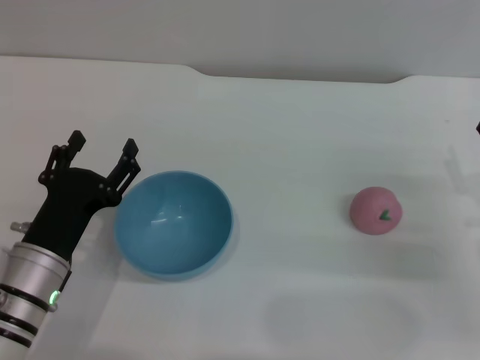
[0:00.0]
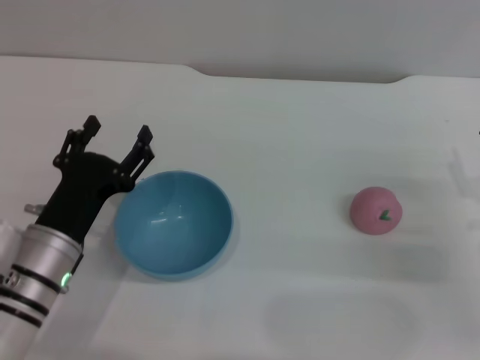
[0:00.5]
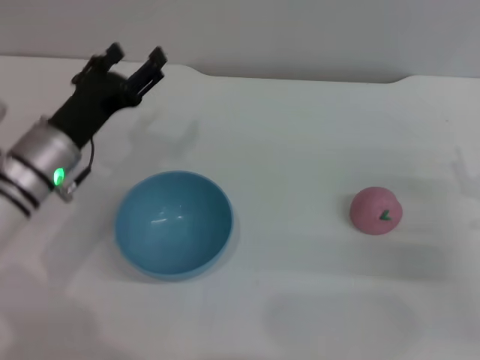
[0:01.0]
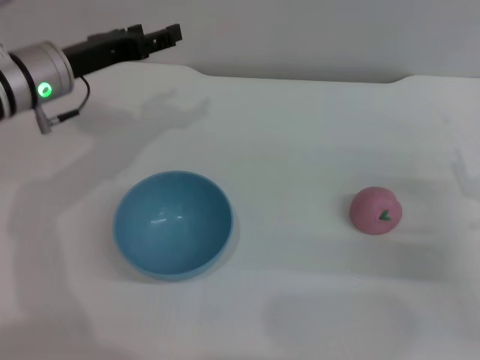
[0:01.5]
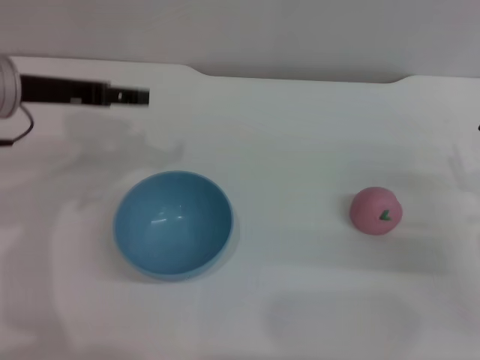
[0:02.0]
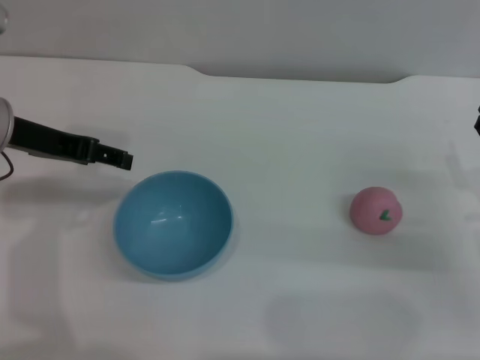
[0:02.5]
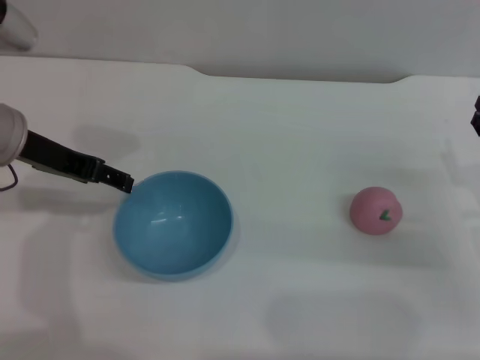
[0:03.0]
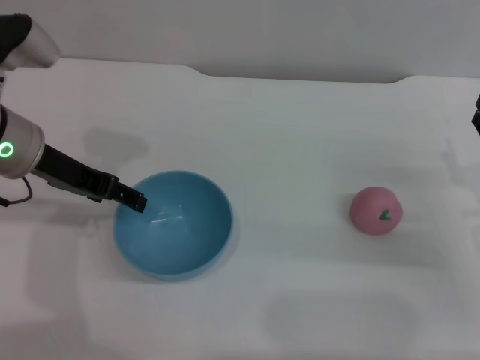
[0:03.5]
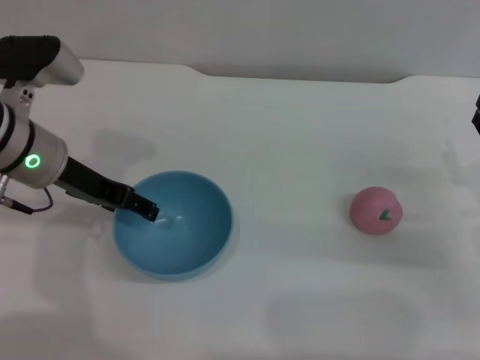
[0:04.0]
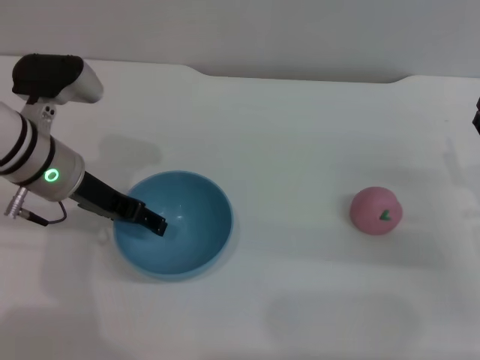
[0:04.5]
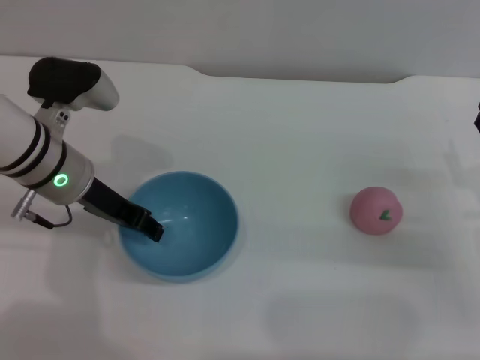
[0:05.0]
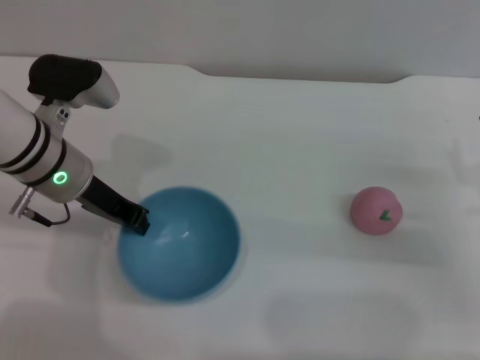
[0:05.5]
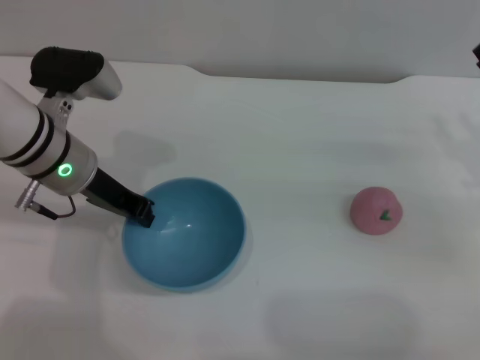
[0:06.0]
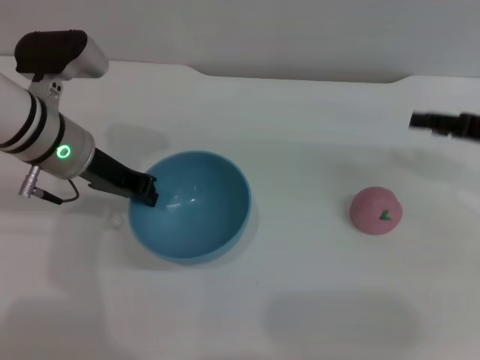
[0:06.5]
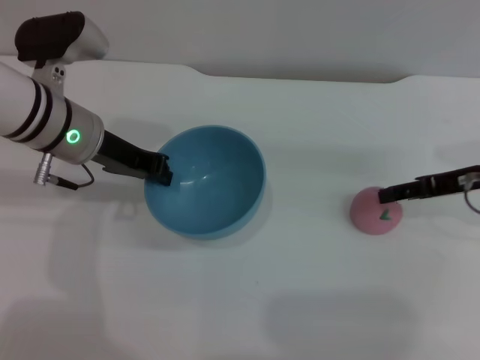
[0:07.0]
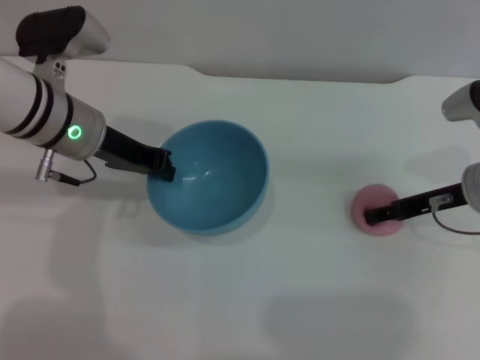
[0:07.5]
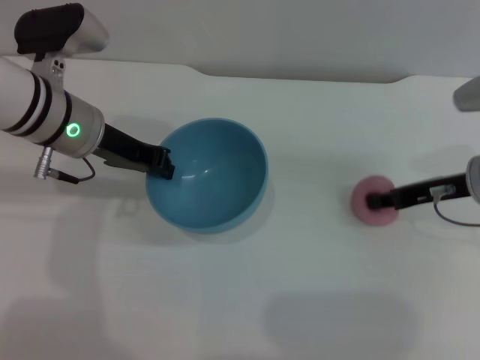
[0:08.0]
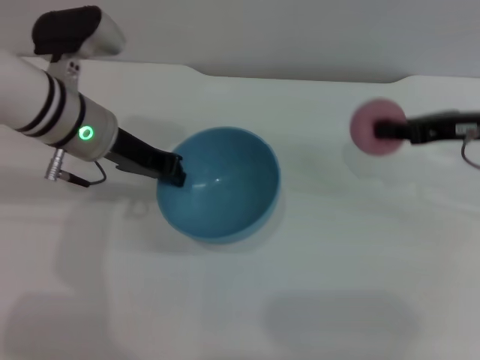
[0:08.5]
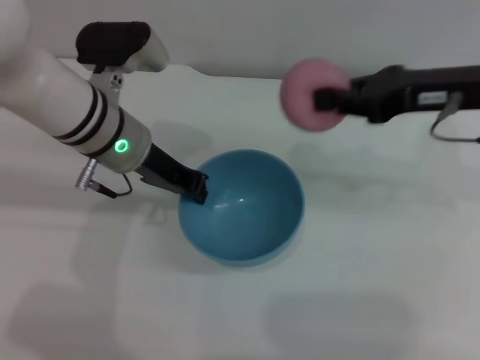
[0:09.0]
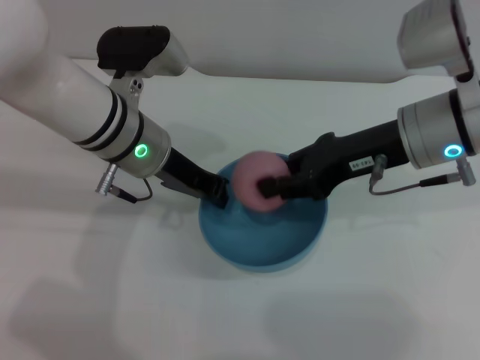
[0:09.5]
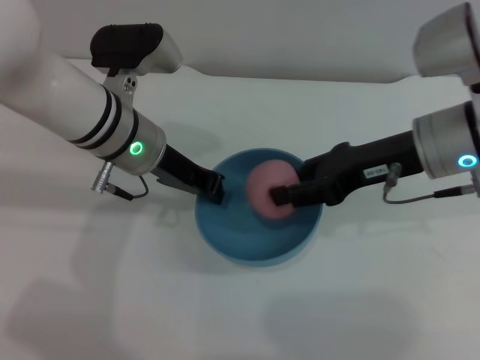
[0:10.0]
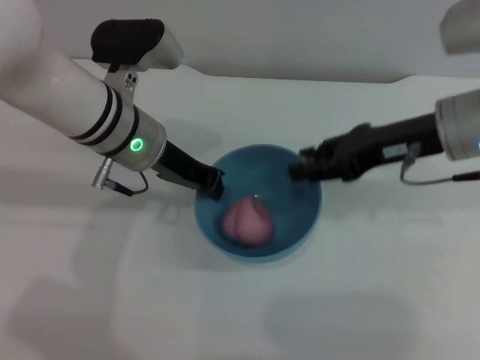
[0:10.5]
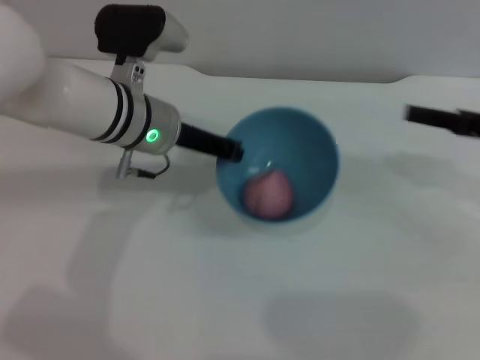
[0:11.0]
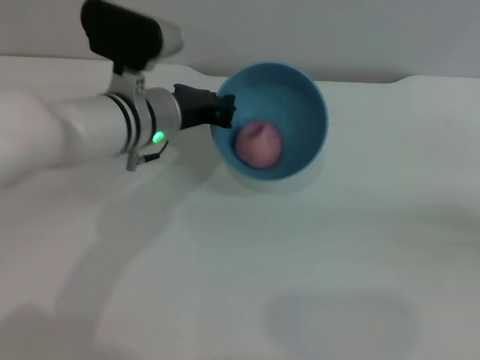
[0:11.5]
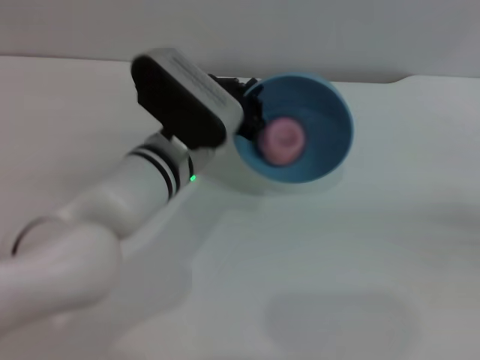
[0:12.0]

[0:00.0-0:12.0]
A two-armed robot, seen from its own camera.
Task of the whole recording: put the peach into the blue bowl and pour it out repeatedly.
Step, 0:00.0 to 0:06.5: Pick up the bowl with the left gripper.
Step, 0:07.0 to 0:08.0: Pick up the peach with the right gripper.
Step, 0:08.5 to 0:10.0: Place the peach into the bowl.
0:00.0 to 0:02.0: The left gripper goes some 20 cm upward and forward.
0:02.0 to 0:04.0: The left gripper moves roughly 5 cm.
0:04.0 to 0:06.0: The left gripper closes.
0:06.0 to 0:08.0: The right gripper goes about 5 cm to the left.
0:08.0 to 0:10.0: The right gripper goes approximately 10 cm to the left and upward, and closes and opens again; the left gripper is displaced to the right by approximately 5 cm.
0:10.0 to 0:12.0: The left gripper is displaced to the right by about 5 cm, while the right gripper shifts some 25 cm to the right.

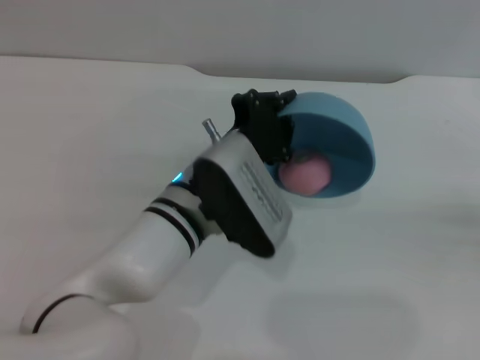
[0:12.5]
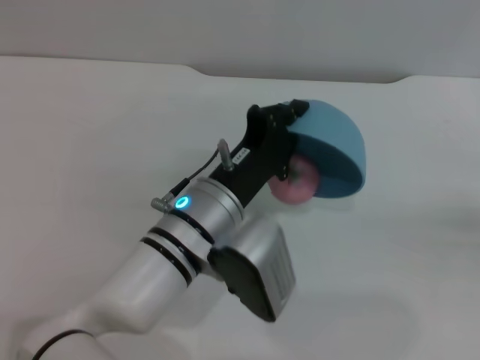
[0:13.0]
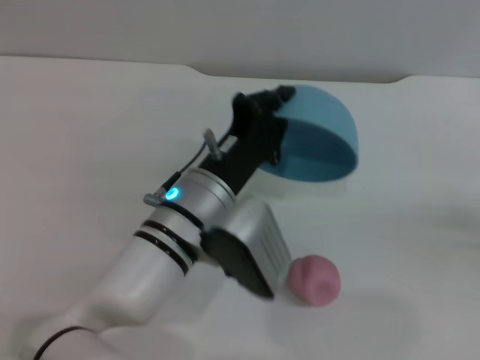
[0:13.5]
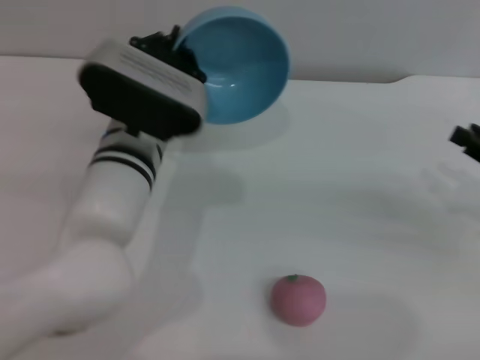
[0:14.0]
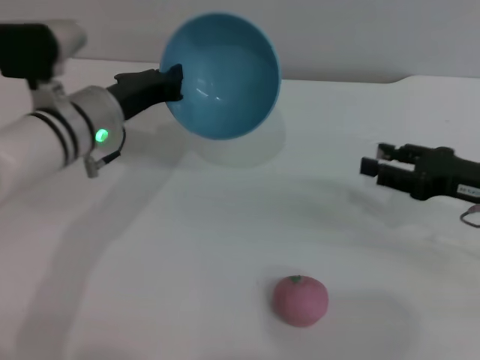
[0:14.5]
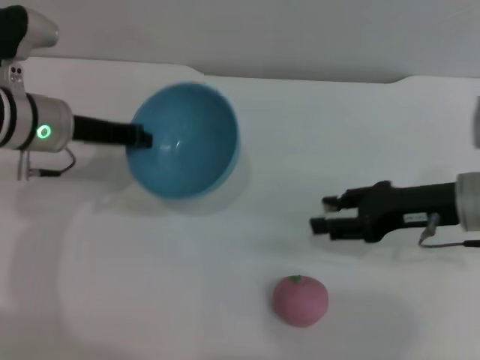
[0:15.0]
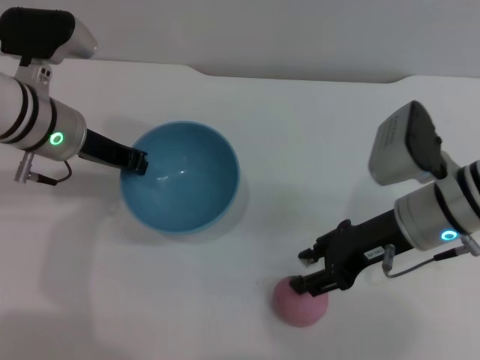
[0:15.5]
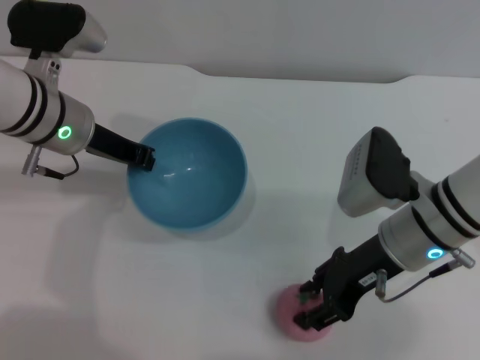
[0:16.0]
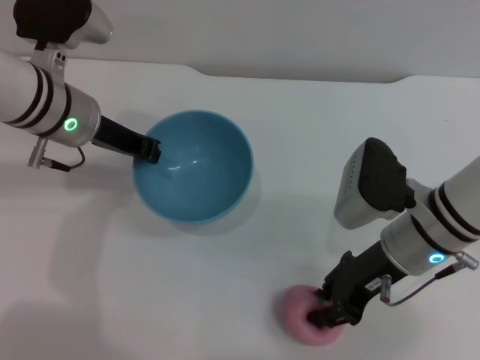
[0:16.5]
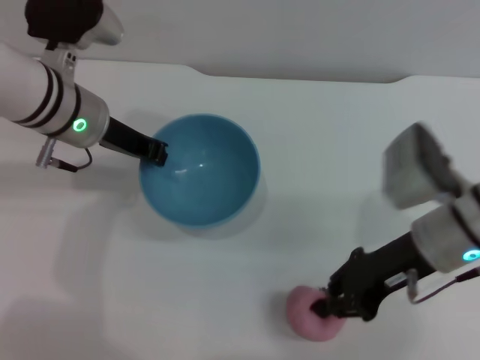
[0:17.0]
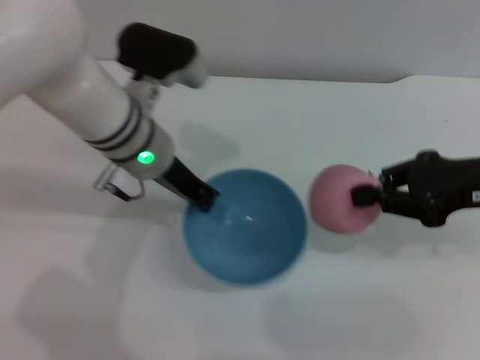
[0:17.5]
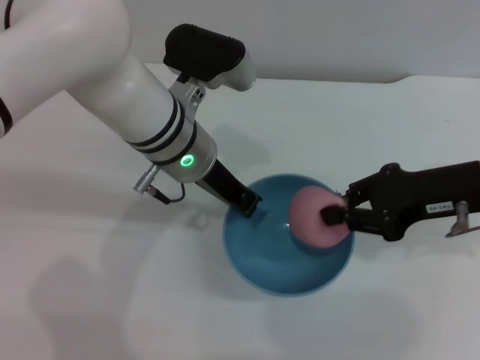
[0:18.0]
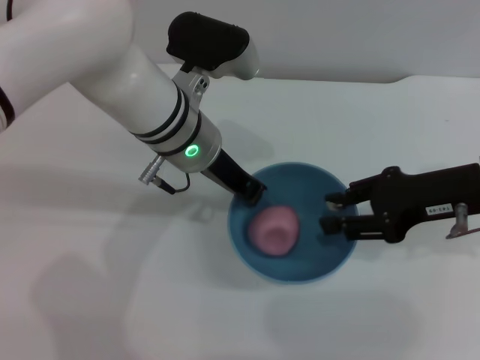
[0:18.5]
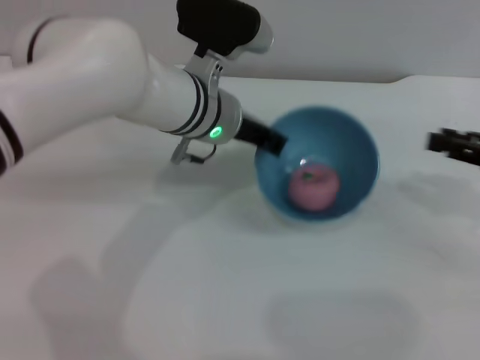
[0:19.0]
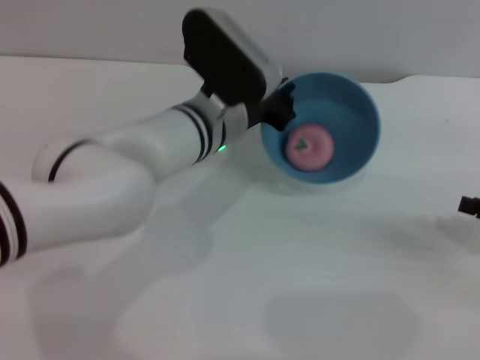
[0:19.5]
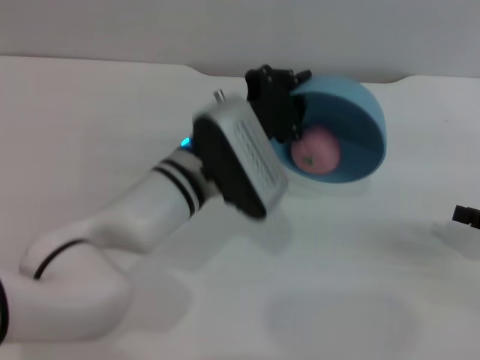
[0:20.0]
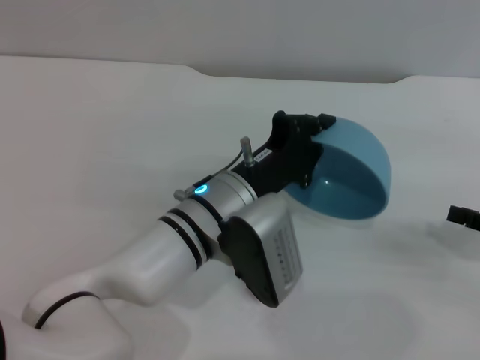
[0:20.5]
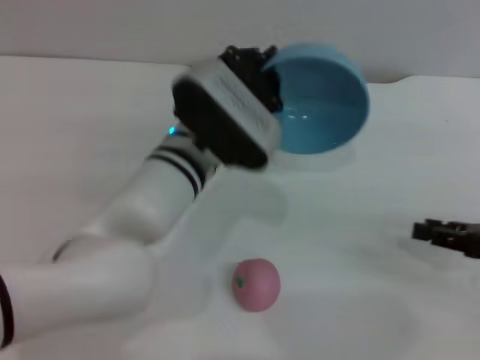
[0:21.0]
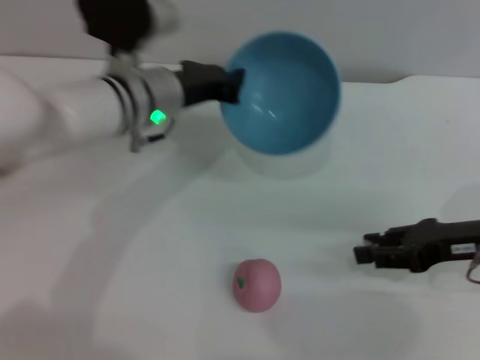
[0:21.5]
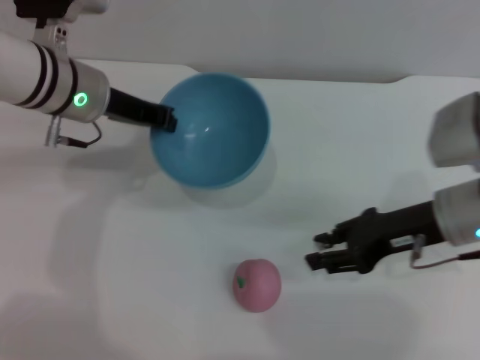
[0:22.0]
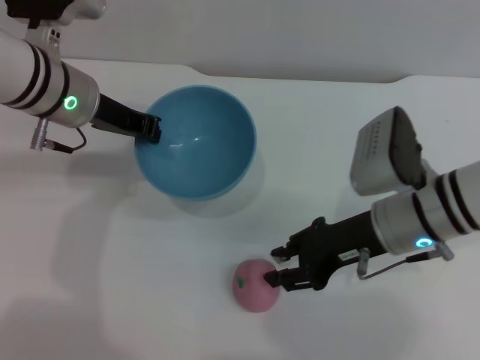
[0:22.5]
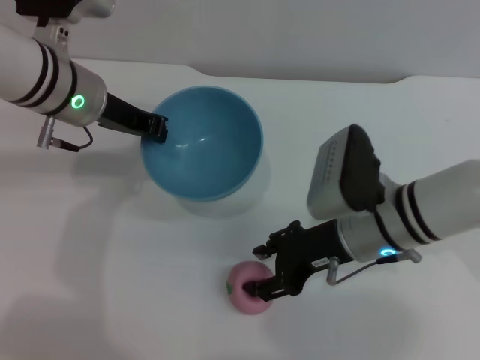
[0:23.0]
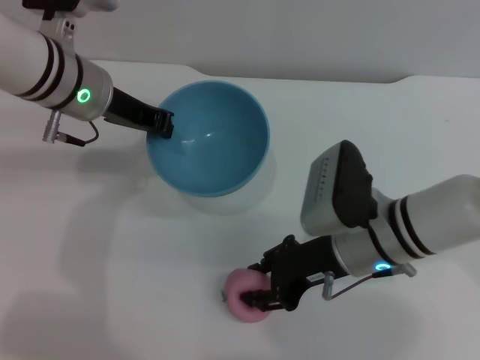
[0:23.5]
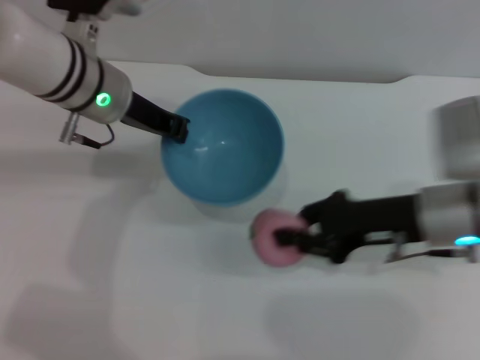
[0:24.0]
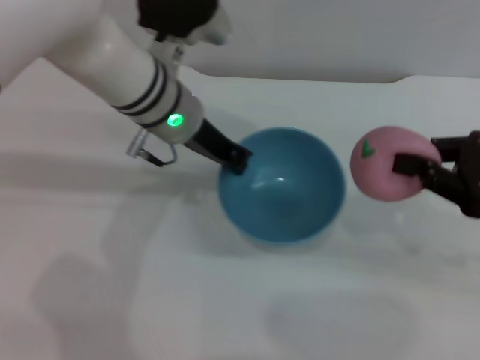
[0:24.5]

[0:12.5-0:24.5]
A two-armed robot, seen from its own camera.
Task of the whole recording: put the peach into the blue bowl and pour it out repeatedly.
Step, 0:13.5 to 0:17.0: Pick up the peach with the right gripper.
Step, 0:17.5 to 0:18.5: Place the peach into the bowl.
Step, 0:19.0 to 0:20.5: Pour the peach out of bowl.
Step, 0:21.0 to 0:24.0: Pick up the peach with the right gripper.
0:12.5 to 0:14.5: The left gripper shifts some 15 cm to the left and forward. The right gripper shifts about 15 cm to the left.
0:14.5 to 0:16.5: The right gripper goes roughly 15 cm to the left.
0:16.5 to 0:18.5: The right gripper moves to the right and upward, about 10 cm, and closes, then opens again, while the left gripper travels to the right by roughly 10 cm.
0:18.5 to 0:20.5: The right gripper is displaced to the right, downward and backward by about 15 cm; the left gripper is displaced backward and downward by approximately 10 cm.
0:20.5 to 0:22.5: The right gripper travels to the left by roughly 20 cm. The left gripper is displaced to the left, forward and upward by about 20 cm.
0:22.5 to 0:24.5: The left gripper moves to the right, some 10 cm. The right gripper goes approximately 15 cm to the right, and closes up.

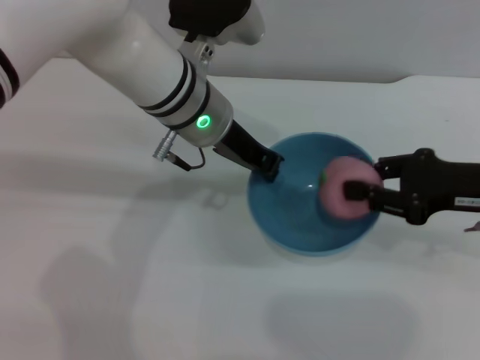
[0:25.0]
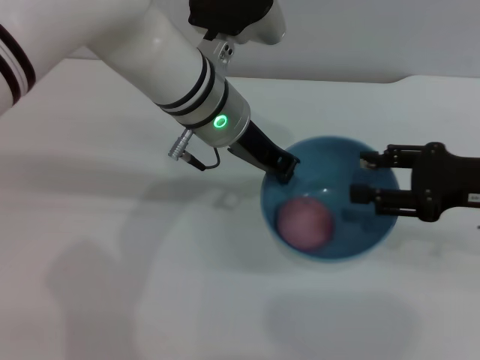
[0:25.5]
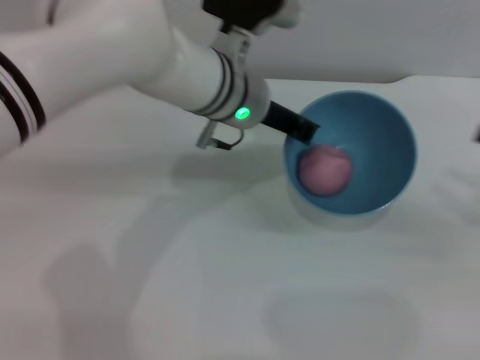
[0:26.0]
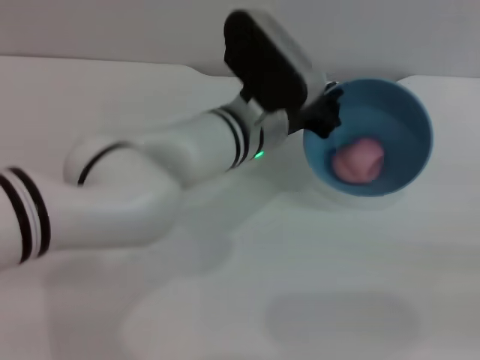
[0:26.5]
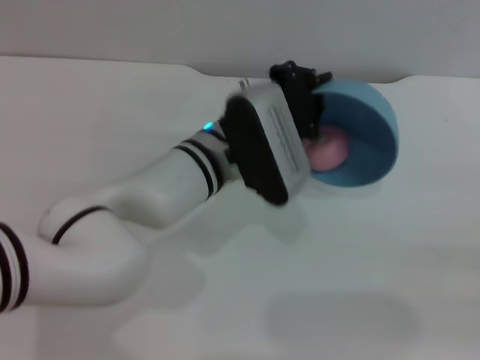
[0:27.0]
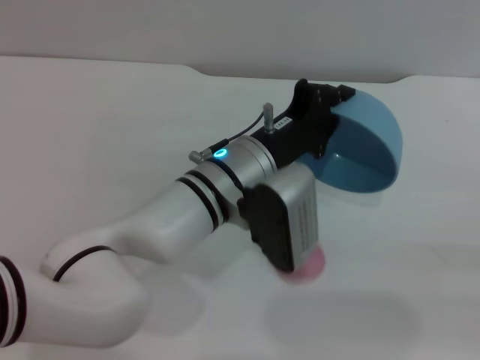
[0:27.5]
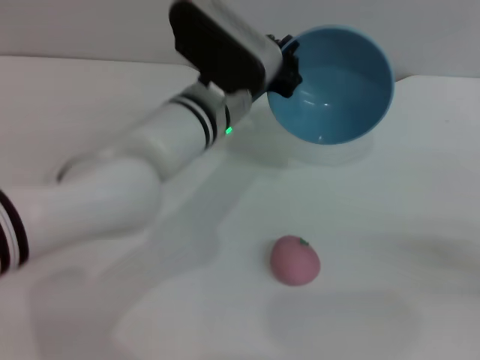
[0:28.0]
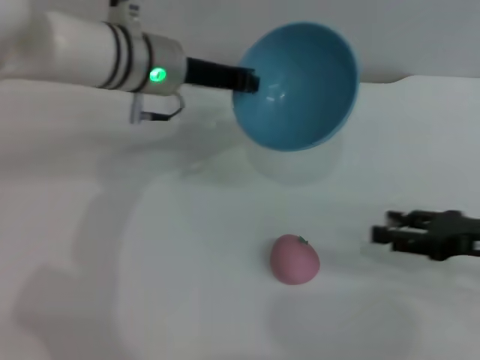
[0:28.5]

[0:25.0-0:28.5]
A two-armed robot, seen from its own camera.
Task of the whole recording: put the peach into the blue bowl and pour it out repeatedly.
Step, 0:26.0 to 0:27.5: Pour the peach out of bowl.
0:25.0 to 0:27.0: The left gripper moves downward, about 5 cm. The right gripper is displaced to the right and backward by some 20 cm, and opens.
0:27.0 to 0:28.5: The left gripper travels to the left, forward and upward by approximately 15 cm; the right gripper moves to the left and forward, about 15 cm.
